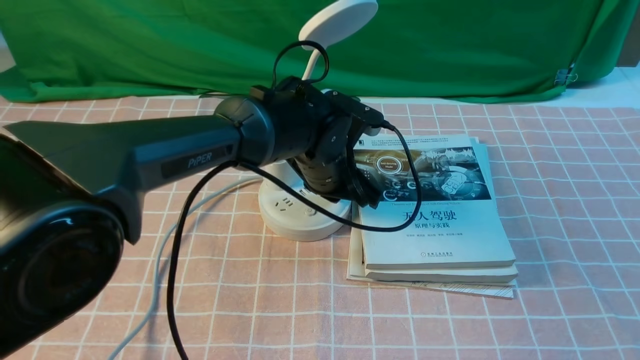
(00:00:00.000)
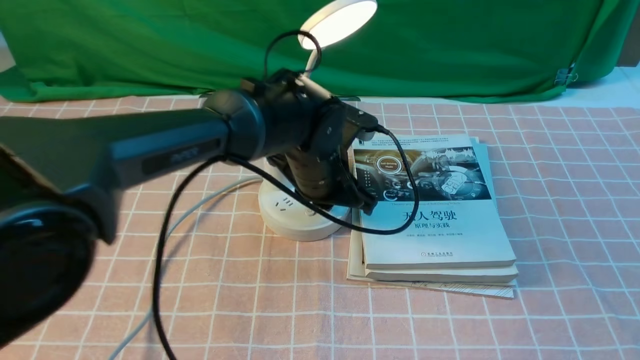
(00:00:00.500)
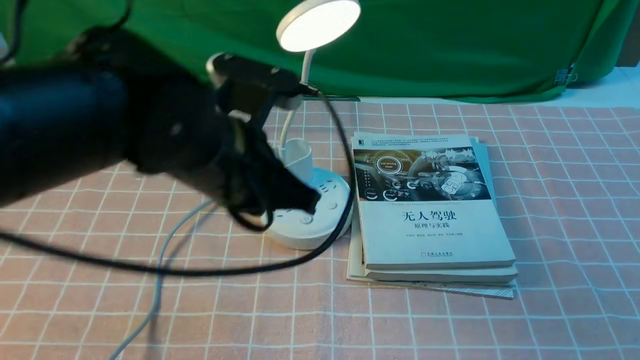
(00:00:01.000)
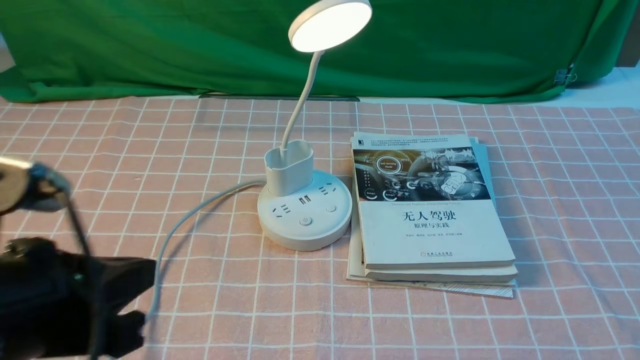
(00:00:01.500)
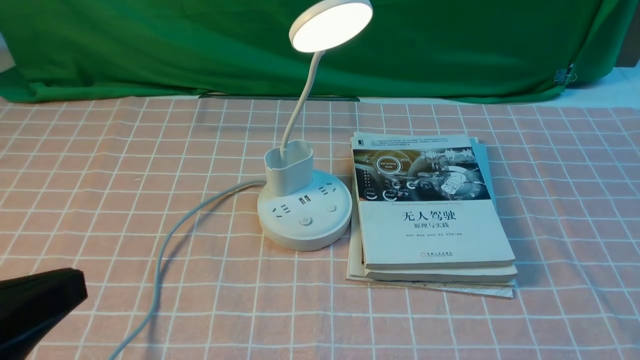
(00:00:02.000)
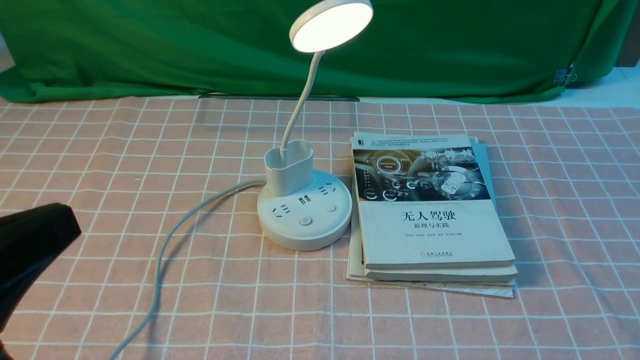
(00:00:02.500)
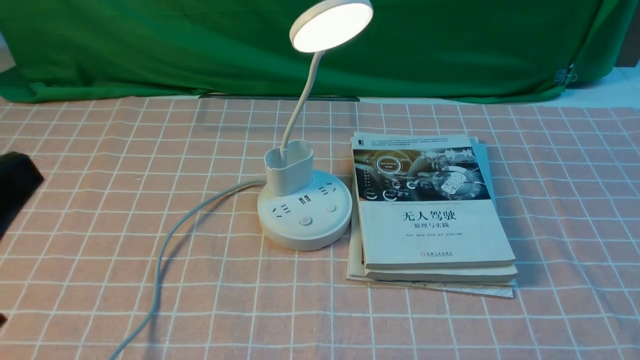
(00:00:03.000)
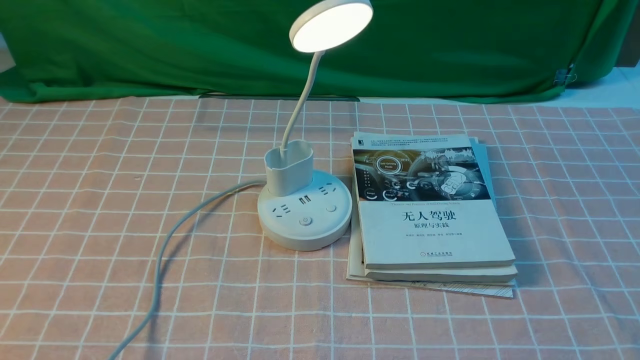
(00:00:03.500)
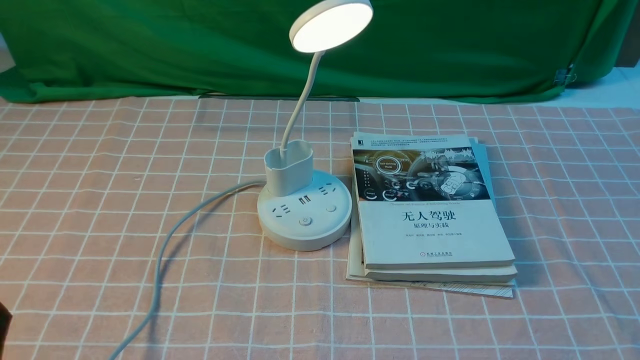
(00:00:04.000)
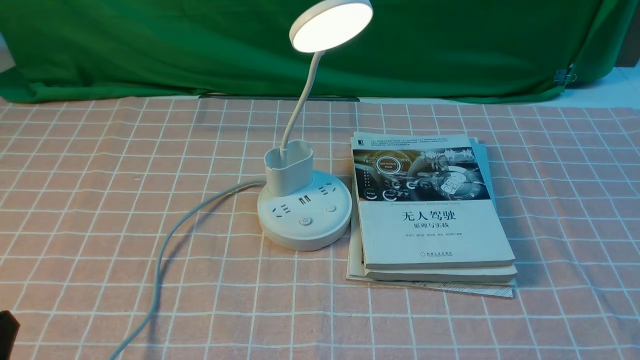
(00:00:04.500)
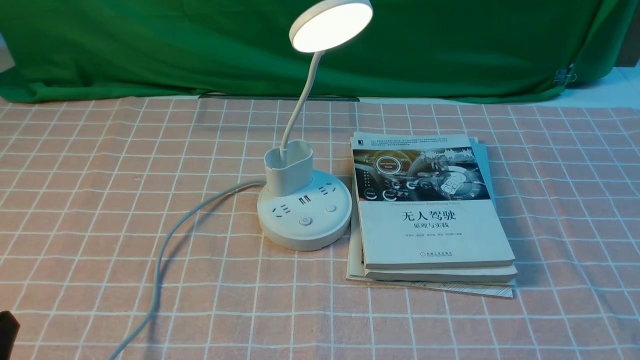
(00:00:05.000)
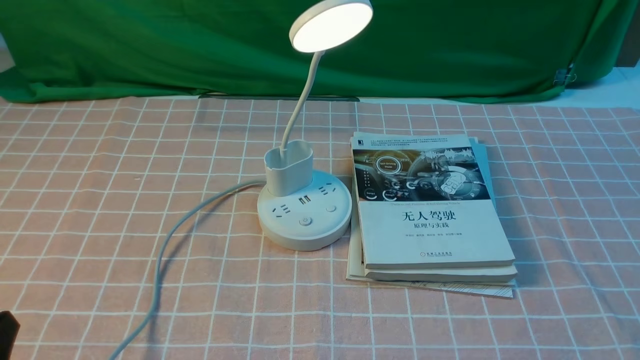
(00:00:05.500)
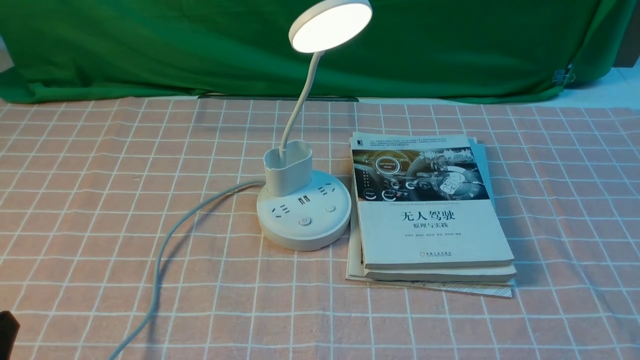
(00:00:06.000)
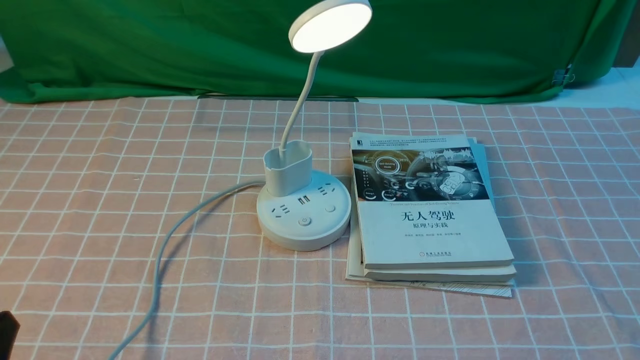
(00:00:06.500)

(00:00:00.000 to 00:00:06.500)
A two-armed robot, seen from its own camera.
00:00:00.000 - 00:00:02.000: The left gripper goes some 40 cm backward, to the left and upward.
00:00:02.000 - 00:00:04.500: The left gripper moves downward, approximately 10 cm, and closes its fingers.
